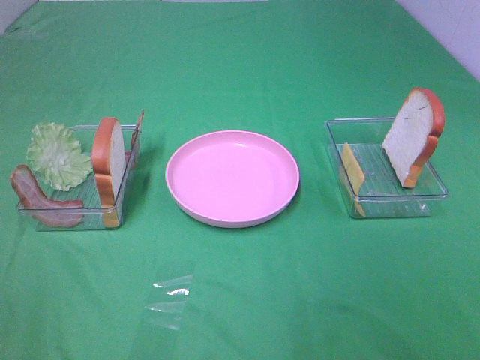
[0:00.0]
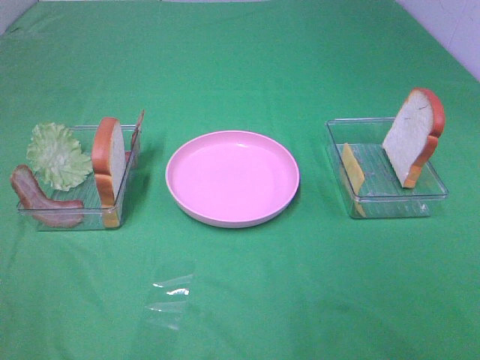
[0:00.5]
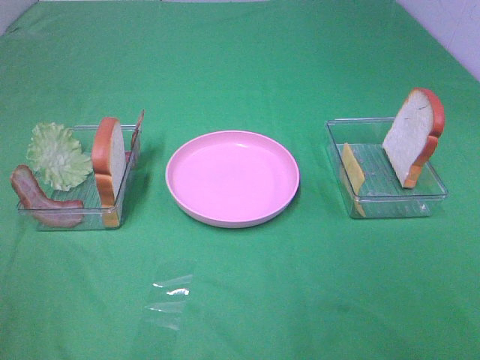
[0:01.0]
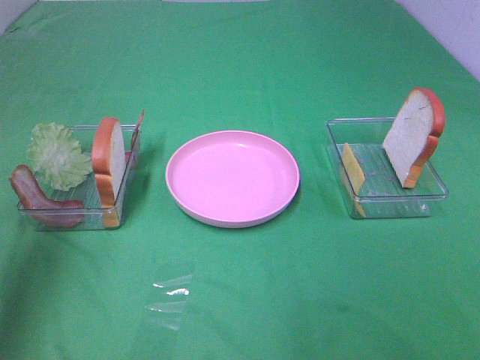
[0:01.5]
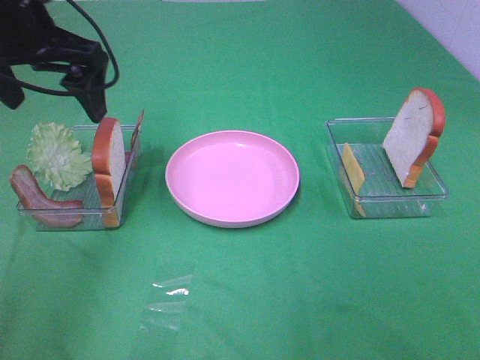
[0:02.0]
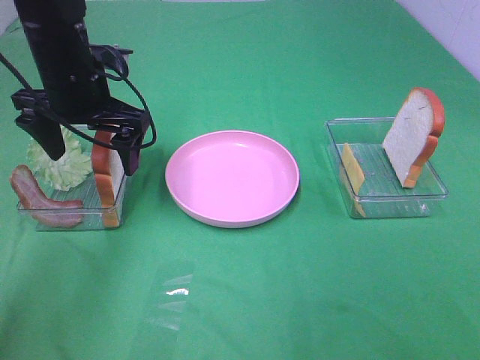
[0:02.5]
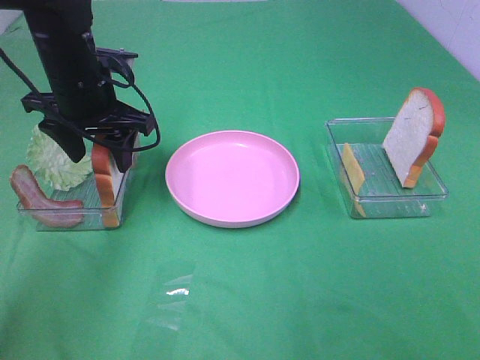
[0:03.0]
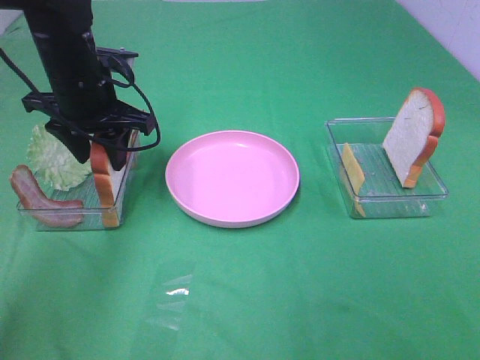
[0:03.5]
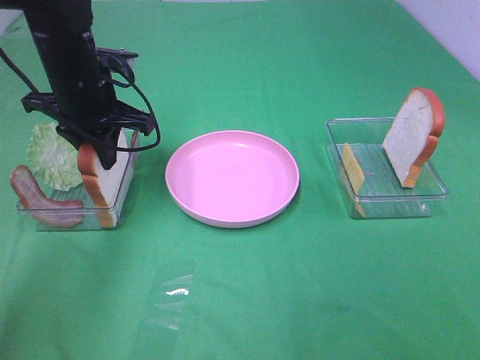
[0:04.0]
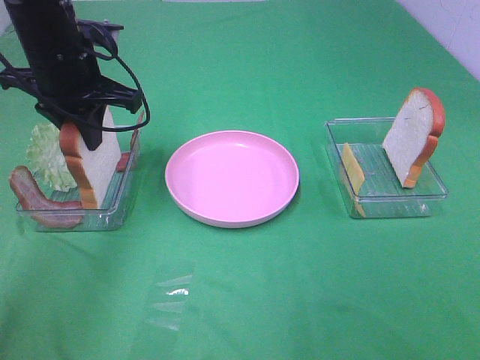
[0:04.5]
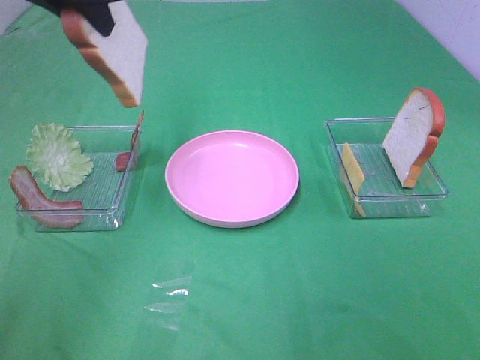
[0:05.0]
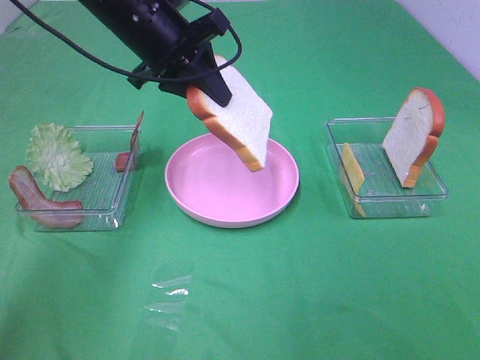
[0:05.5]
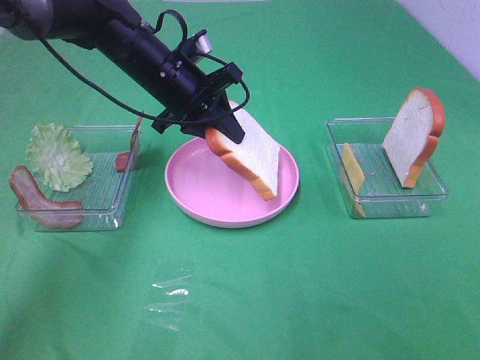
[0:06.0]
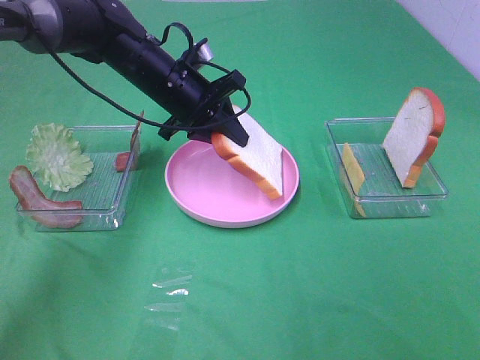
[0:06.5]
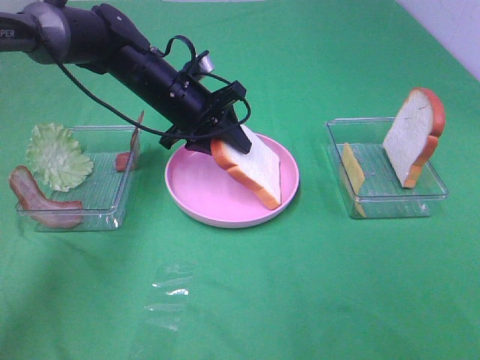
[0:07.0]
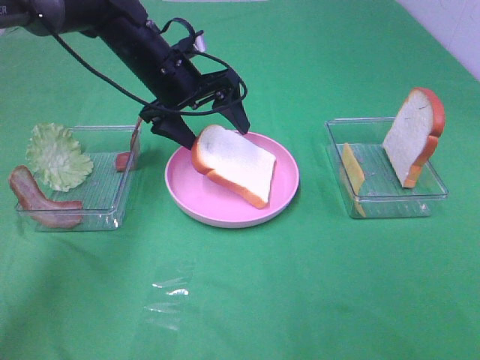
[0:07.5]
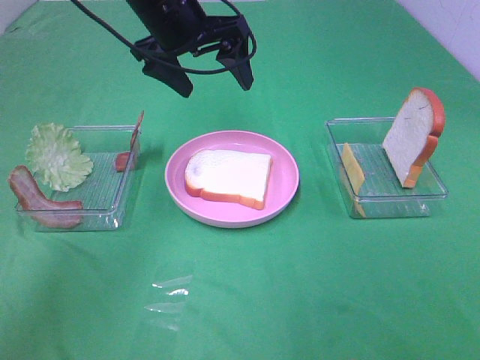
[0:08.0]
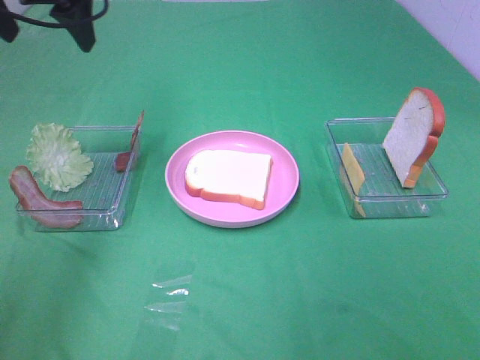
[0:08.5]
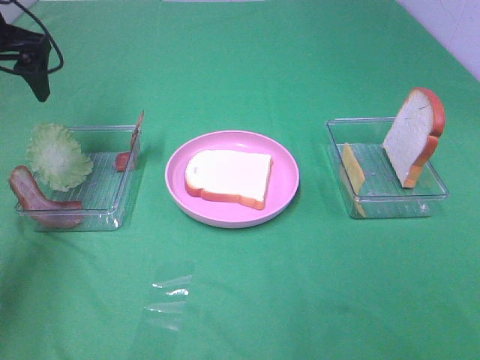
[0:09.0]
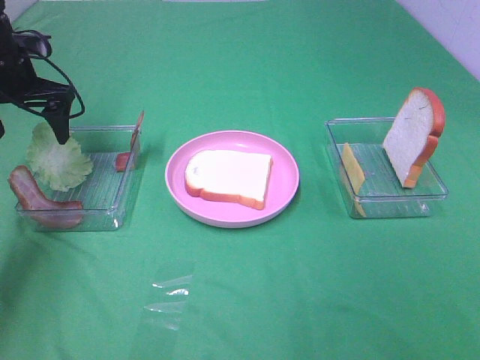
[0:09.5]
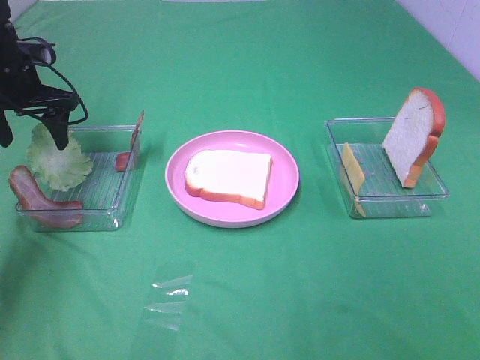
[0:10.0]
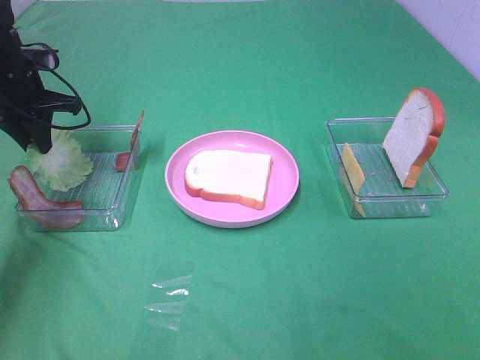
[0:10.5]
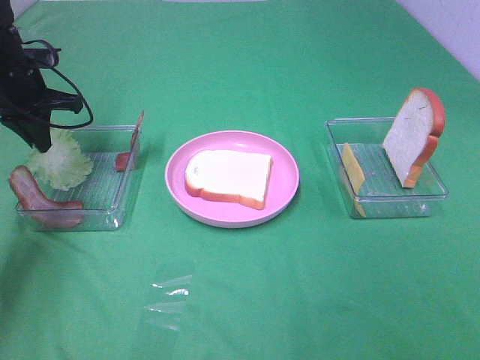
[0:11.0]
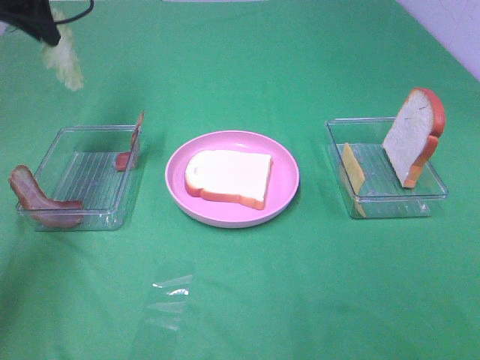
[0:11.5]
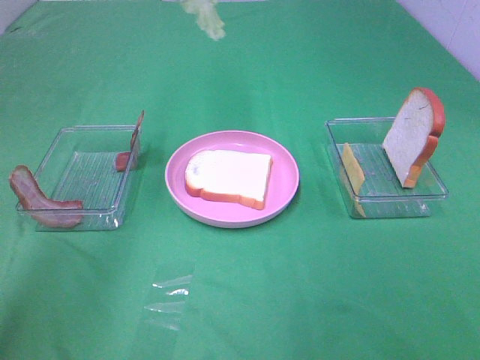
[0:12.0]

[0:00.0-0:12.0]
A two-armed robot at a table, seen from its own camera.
Task of the whole recording: Make sandwiches.
Step, 0:00.0 to 0:04.0: Left hand:grab the bread slice.
Step, 0:04.5 to 0:07.5: Left hand:place the bread slice on the plate.
Step, 0:08.0 to 0:11.0: Left hand:grab the lettuce slice.
0:00.0 to 0:02.0: The left gripper goes some 35 cm forward.
0:02.0 to 0:04.0: The left gripper travels downward by approximately 10 cm, and closes.
0:04.0 to 0:06.0: The left gripper travels to the right by some 10 cm, and travels upward and back again, about 15 cm each way.
0:06.0 to 0:08.0: The left gripper travels upward by some 10 cm, and opens.
0:08.0 to 0:10.0: The left gripper moves to the left and downward, approximately 25 cm.
0:10.0 to 0:12.0: The left gripper heads upward and to the right, covering approximately 25 cm, and closes.

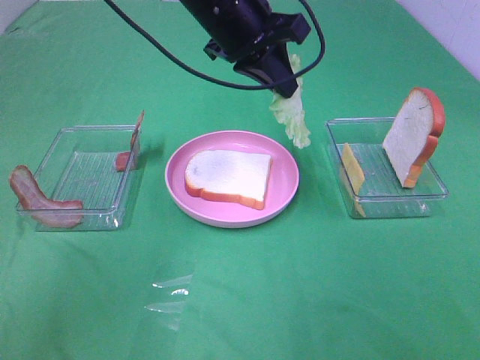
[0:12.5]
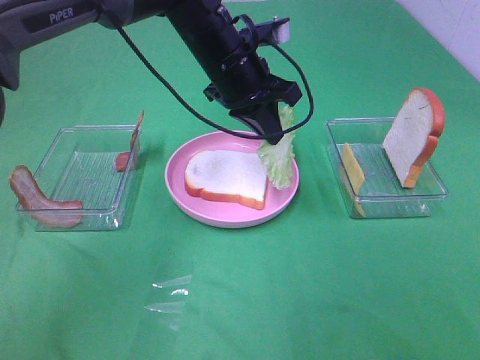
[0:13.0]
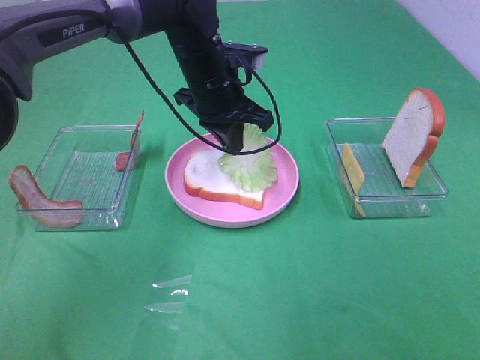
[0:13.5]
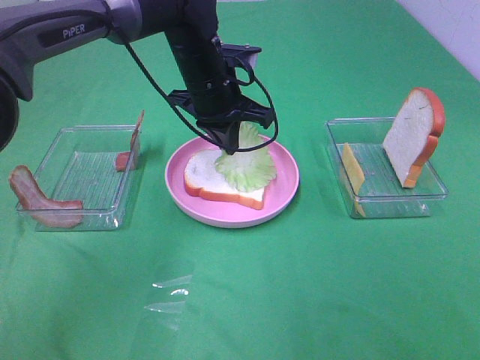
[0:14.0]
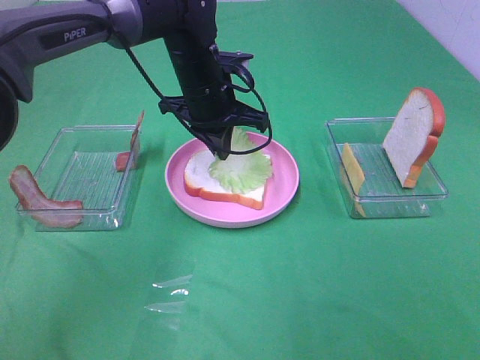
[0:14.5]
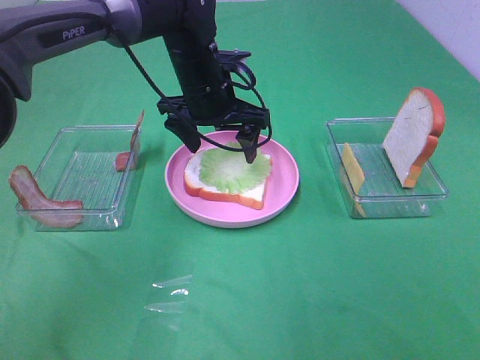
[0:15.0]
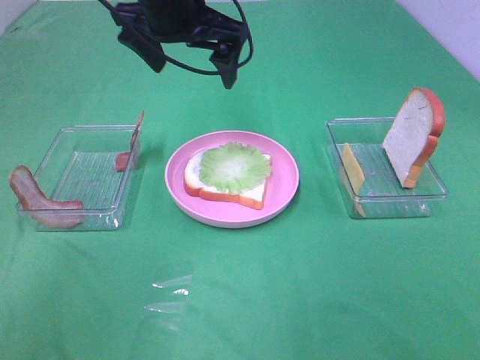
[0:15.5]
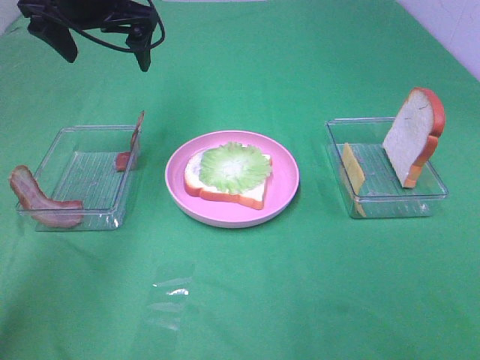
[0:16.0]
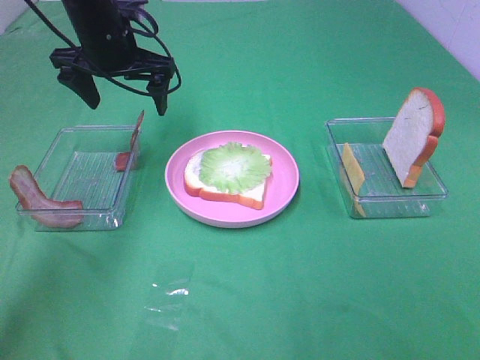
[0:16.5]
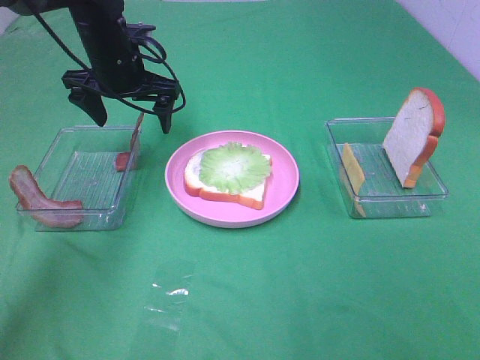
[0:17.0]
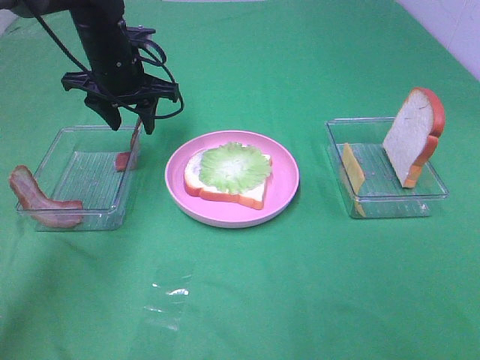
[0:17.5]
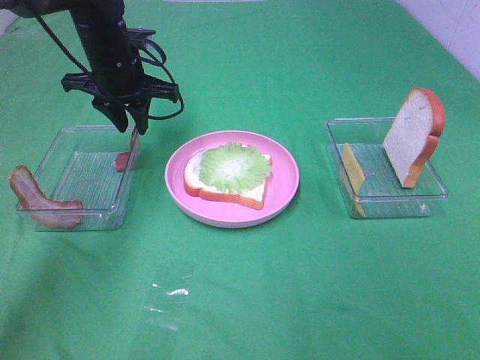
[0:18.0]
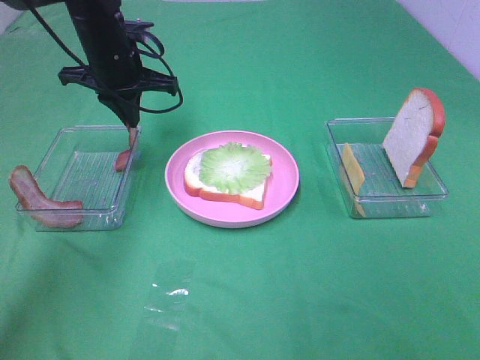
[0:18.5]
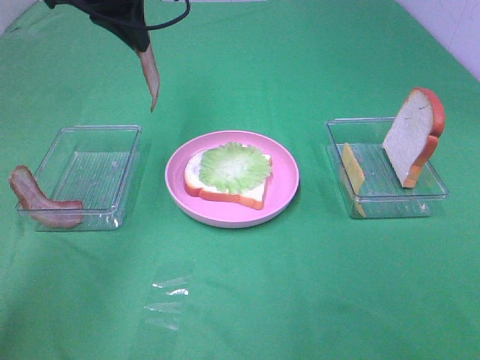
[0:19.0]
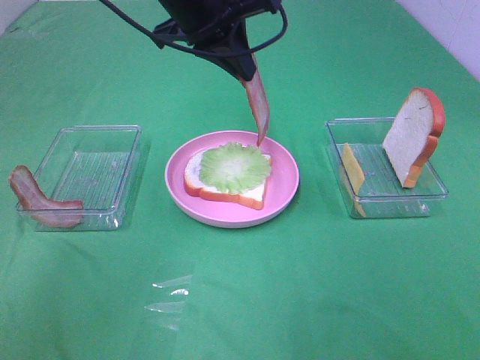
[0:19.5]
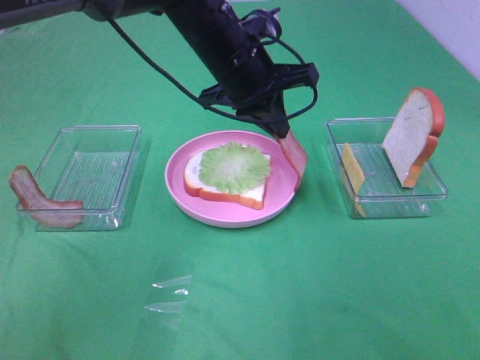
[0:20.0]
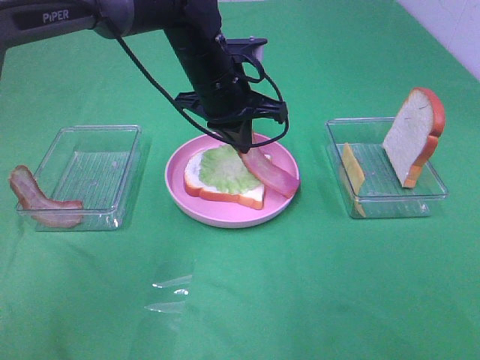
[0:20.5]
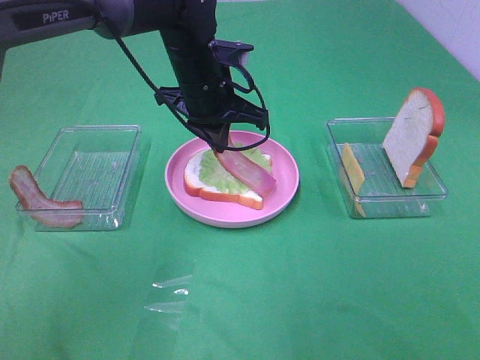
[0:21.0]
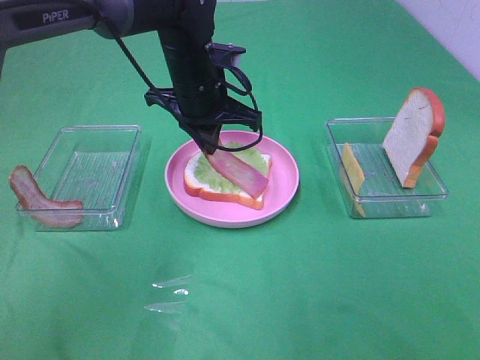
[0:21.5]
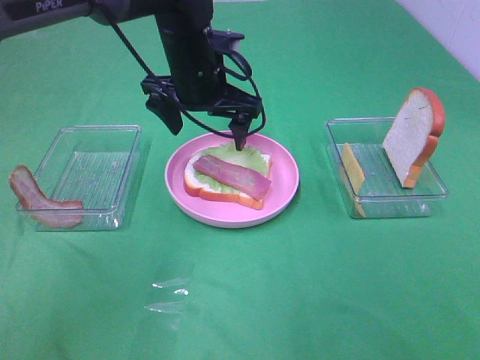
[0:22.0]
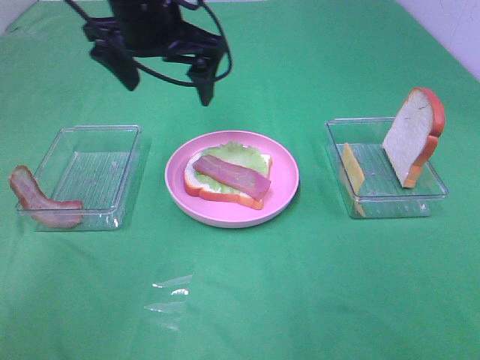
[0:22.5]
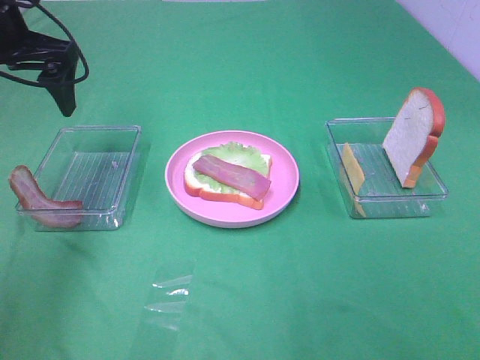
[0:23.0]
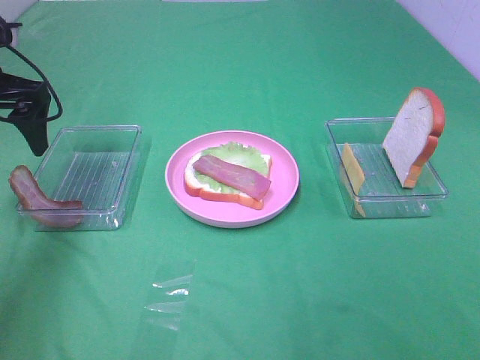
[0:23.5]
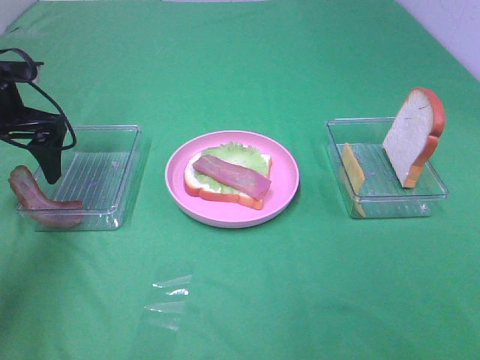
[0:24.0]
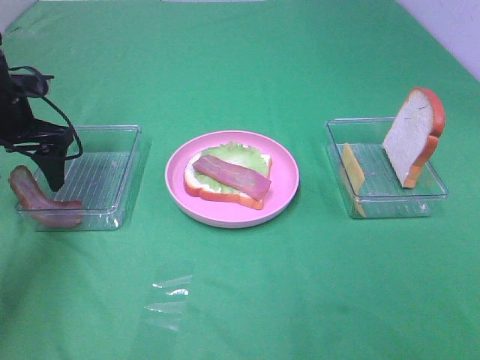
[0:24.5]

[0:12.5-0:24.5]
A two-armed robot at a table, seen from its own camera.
Task of the whole recording: Make sandwiches.
Step, 0:12.5 to 0:15.0: Left hand:place the lettuce slice on the bread slice.
Step, 0:15.5 to 0:18.0: Left hand:grab the bacon.
Step, 0:18.5 to 0:21.5: Left hand:place bacon on lettuce slice.
0:12.5 to 0:14.5: The left gripper moves downward, roughly 10 cm.
0:14.5 to 0:16.5: The left gripper is displaced to the left and upward by approximately 15 cm, and opens up.
0:16.5 to 0:18.5: The left gripper closes its fingers.
0:18.5 to 0:20.5: The left gripper shifts approximately 15 cm to the right.
0:20.5 to 0:22.5: The left gripper heads upward and to the left, covering some 10 cm, and opens up.
0:22.5 to 0:24.5: The left gripper moves to the left and downward, approximately 20 cm.

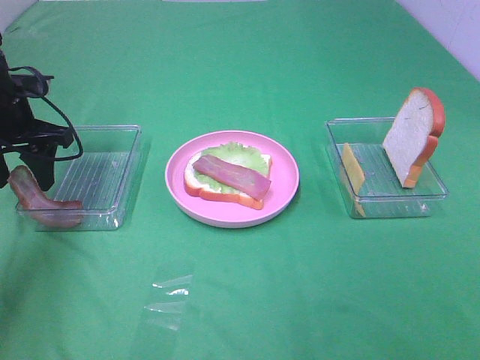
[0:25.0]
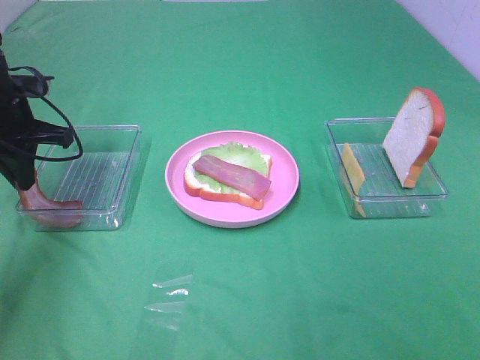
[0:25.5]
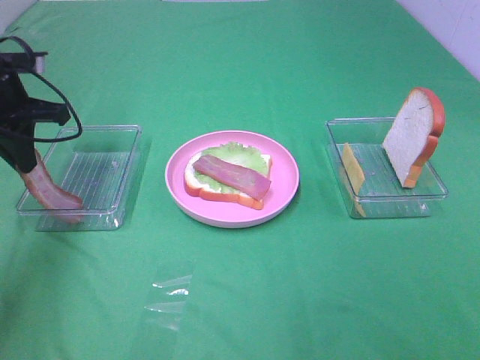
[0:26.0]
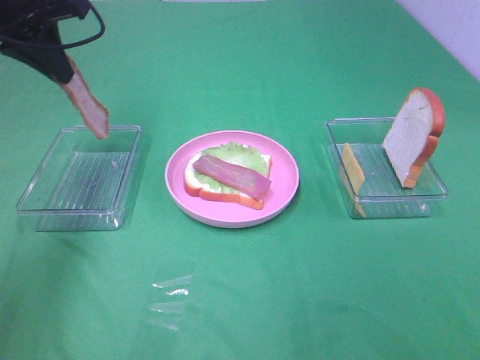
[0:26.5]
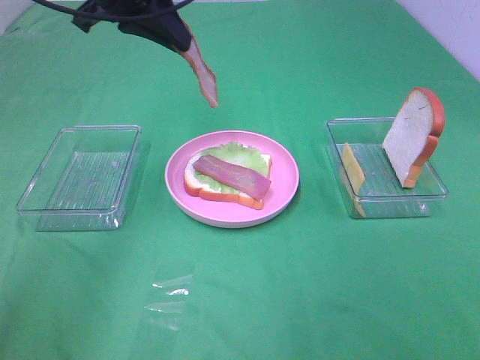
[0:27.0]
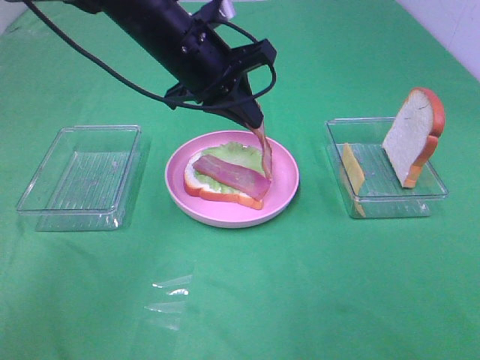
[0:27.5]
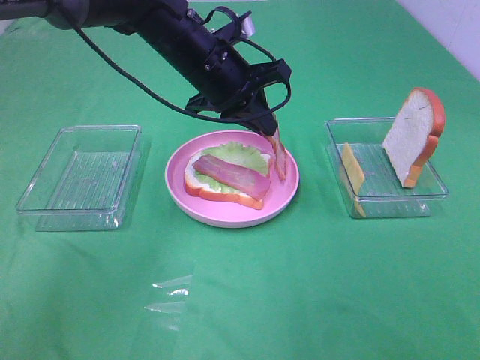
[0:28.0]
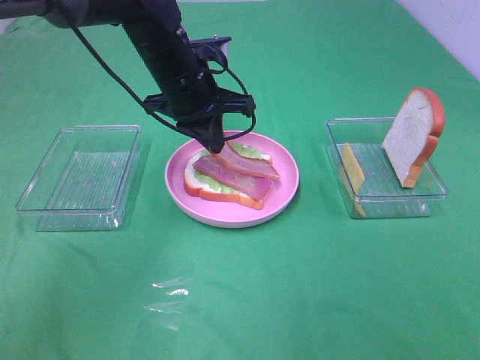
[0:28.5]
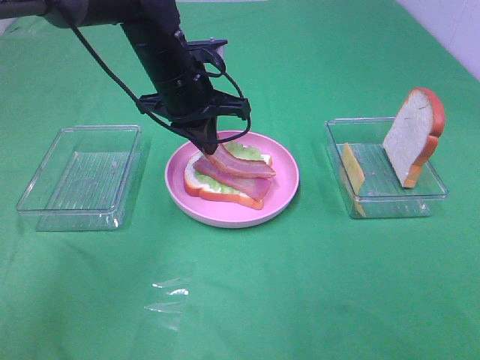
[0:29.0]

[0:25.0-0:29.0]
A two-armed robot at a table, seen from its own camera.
Task of the whole recording: Make sandwiches.
0:25.0 to 0:27.0: The left gripper is displaced to the right and upward by roughly 20 cm, and closes.
0:27.0 to 0:29.0: The left gripper shifts about 15 cm downward and to the right.
